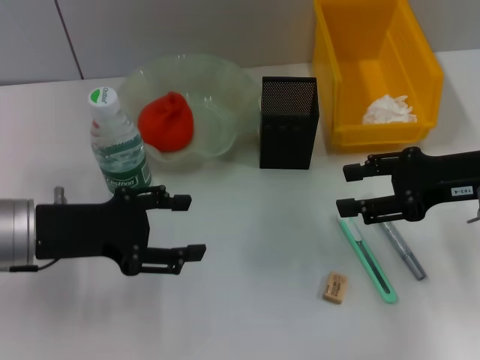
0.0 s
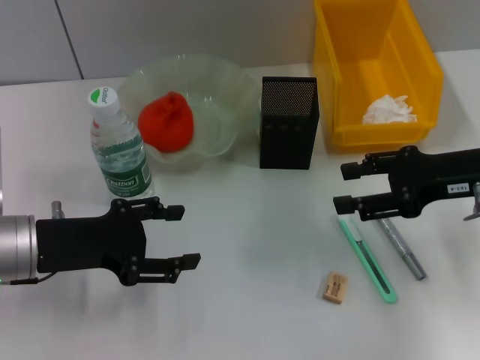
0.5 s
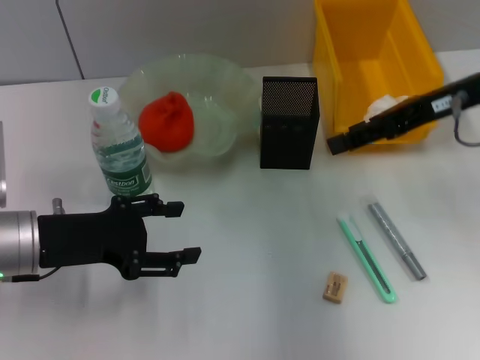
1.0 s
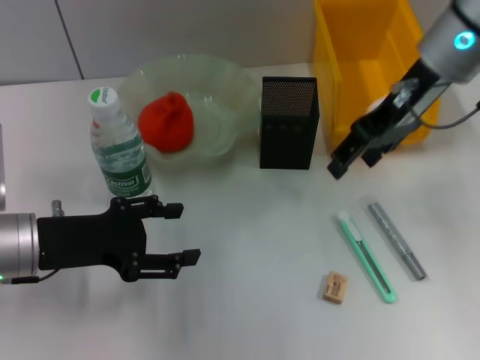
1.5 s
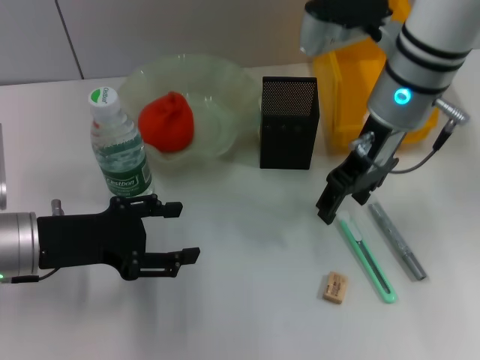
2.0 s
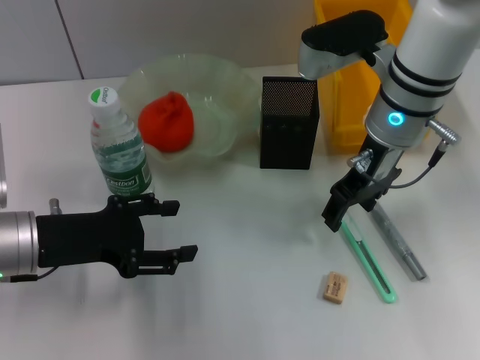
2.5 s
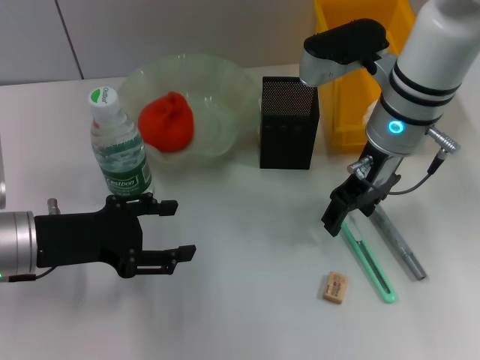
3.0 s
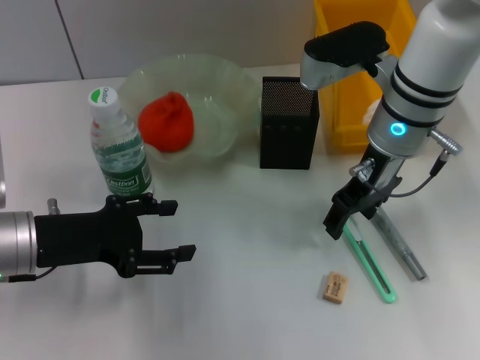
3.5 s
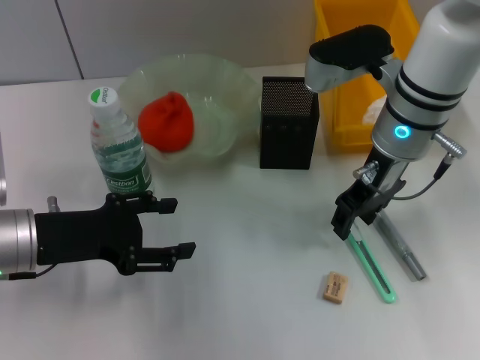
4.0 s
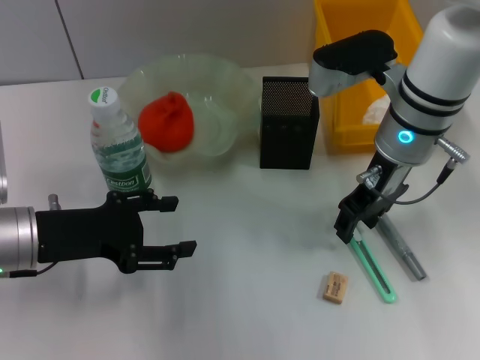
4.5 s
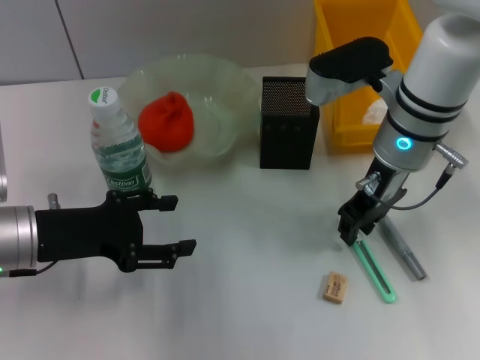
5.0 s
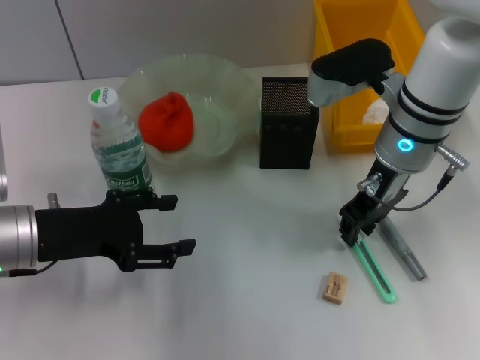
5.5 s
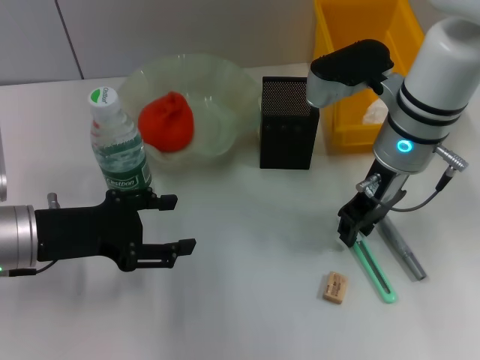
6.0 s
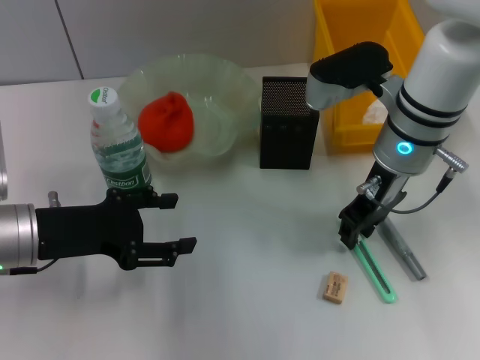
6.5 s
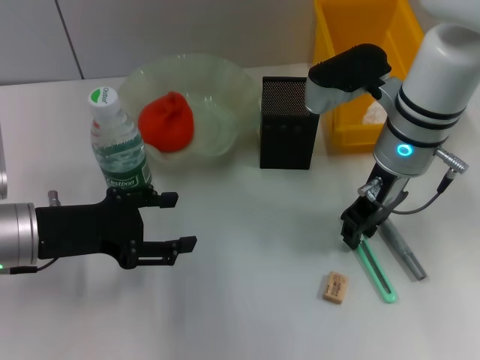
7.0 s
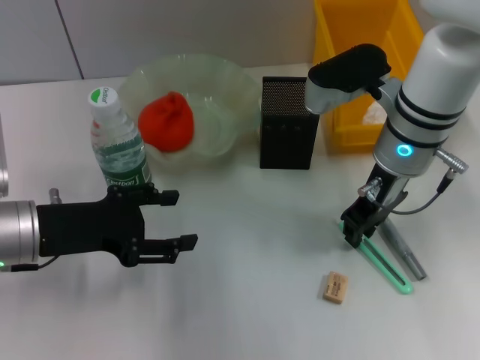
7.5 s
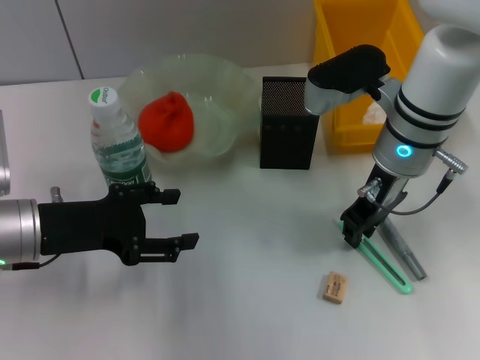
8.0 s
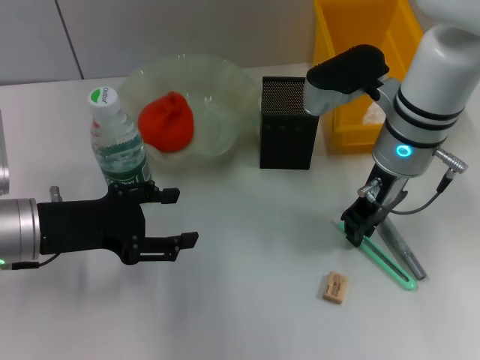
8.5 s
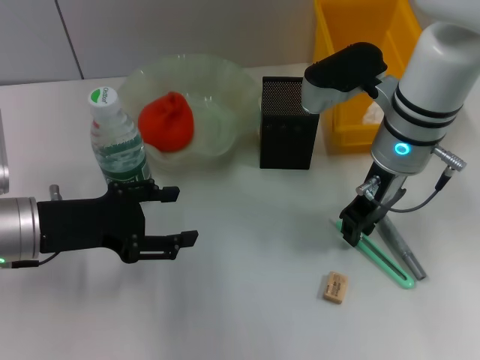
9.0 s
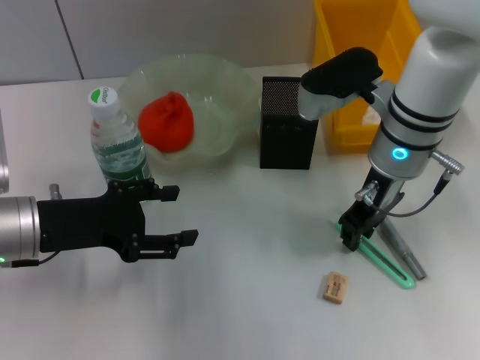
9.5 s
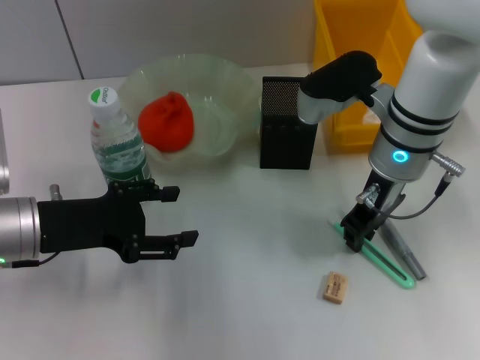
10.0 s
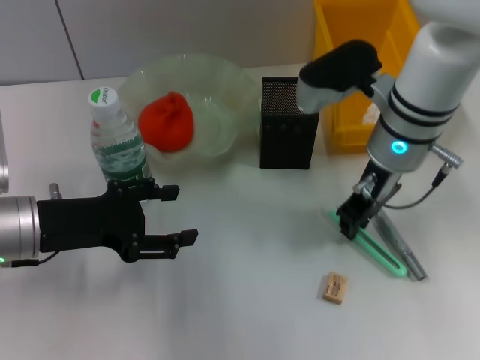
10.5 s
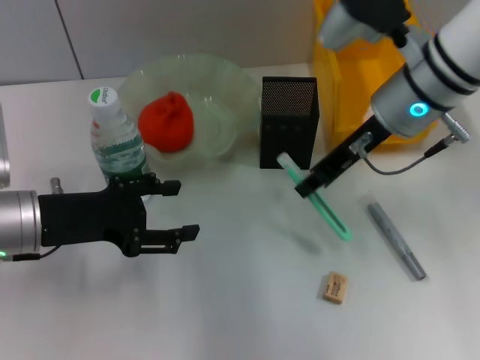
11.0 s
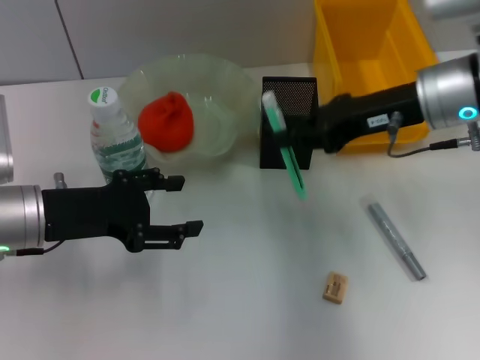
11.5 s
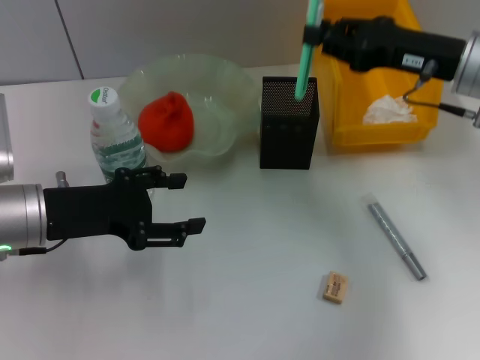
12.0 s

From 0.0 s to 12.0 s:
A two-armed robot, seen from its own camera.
Step, from 0.0 s to 9.0 s: Grab the blue utility knife with the right hand.
From 0.0 s to 2.0 s: The right gripper travels to the left and forward by some 15 cm.
From 2.0 s to 4.0 s: The grippers make only small movements.
From 4.0 s to 6.0 s: The two grippers keep their place.
From 6.0 s to 8.0 s: The two grippers keep their place.
From 8.0 s to 10.0 s: The two grippers keep their place.
From 10.0 s to 12.0 s: The right gripper goes roughly 10 cm to the right.

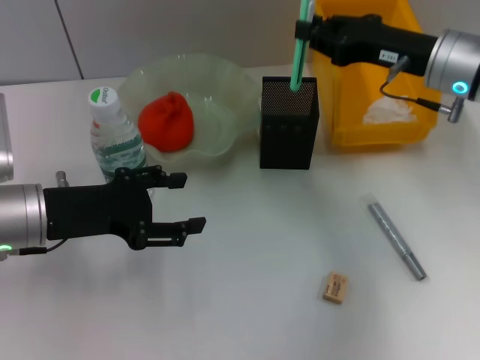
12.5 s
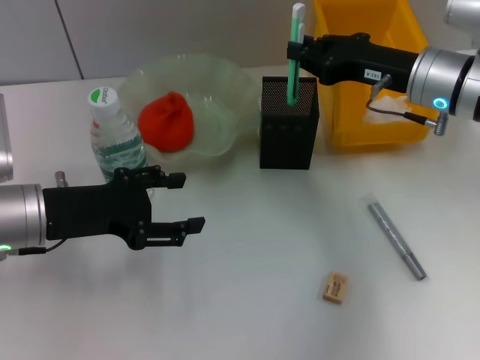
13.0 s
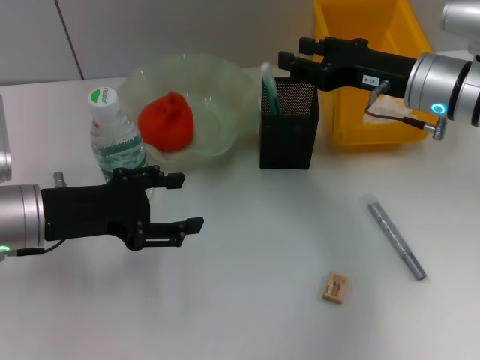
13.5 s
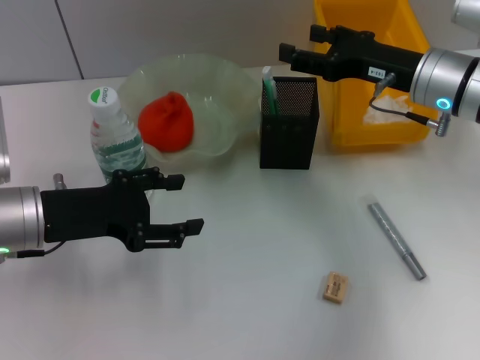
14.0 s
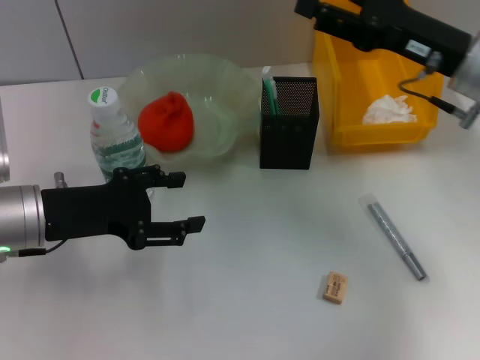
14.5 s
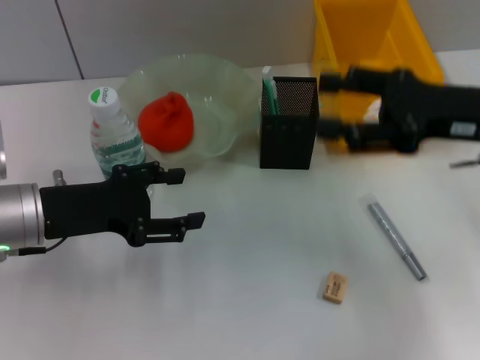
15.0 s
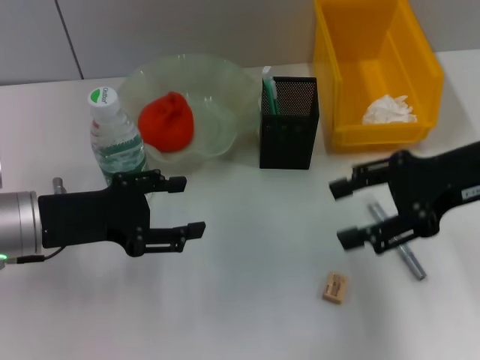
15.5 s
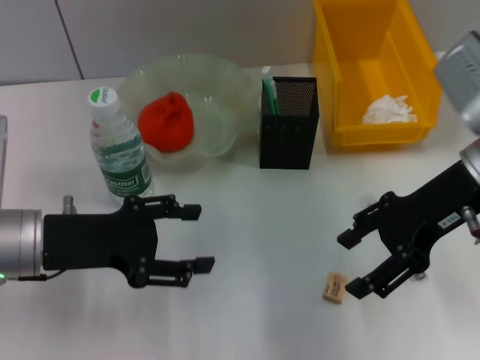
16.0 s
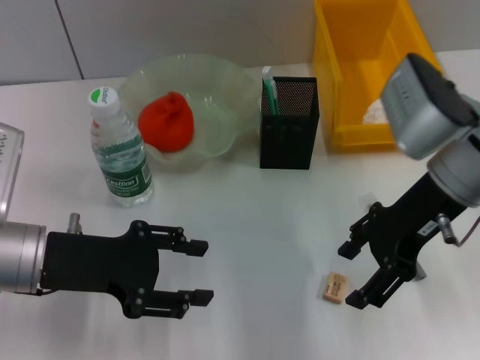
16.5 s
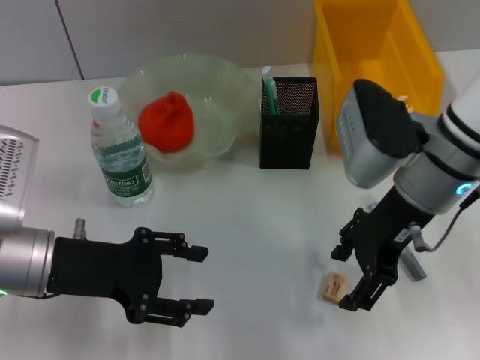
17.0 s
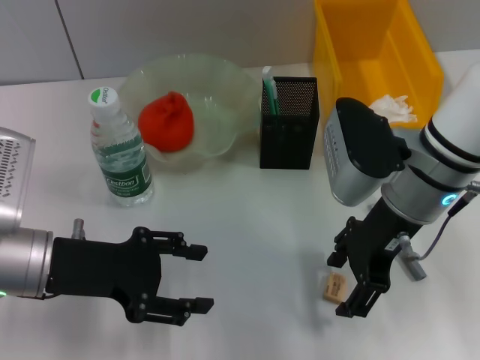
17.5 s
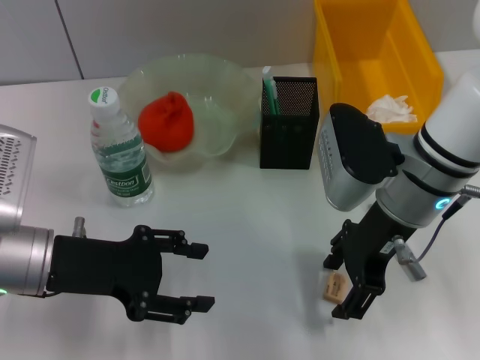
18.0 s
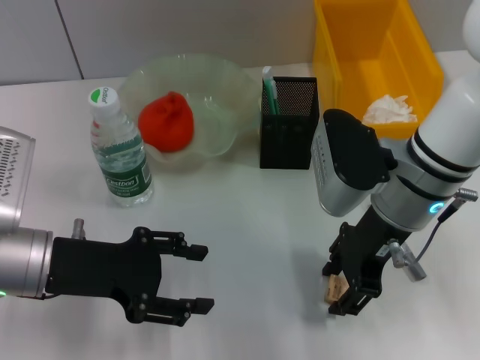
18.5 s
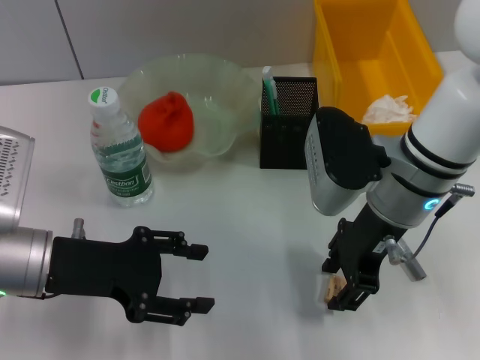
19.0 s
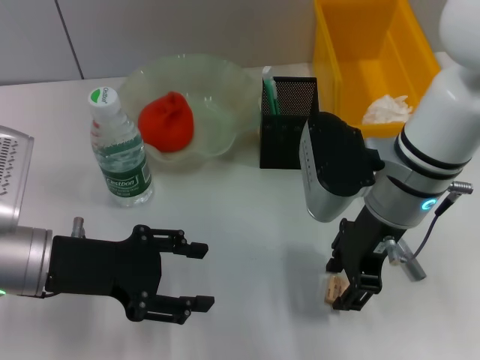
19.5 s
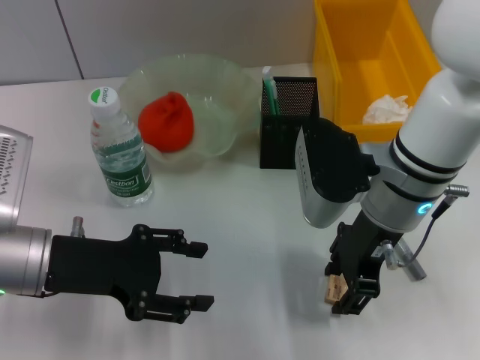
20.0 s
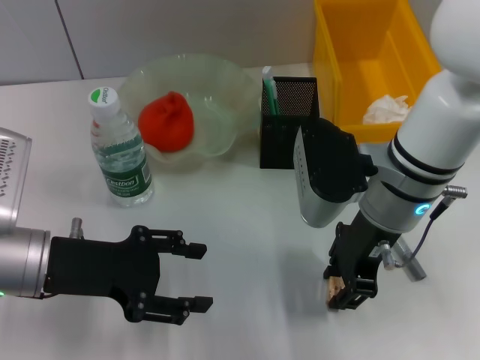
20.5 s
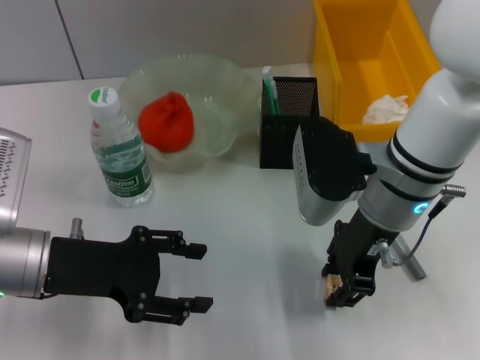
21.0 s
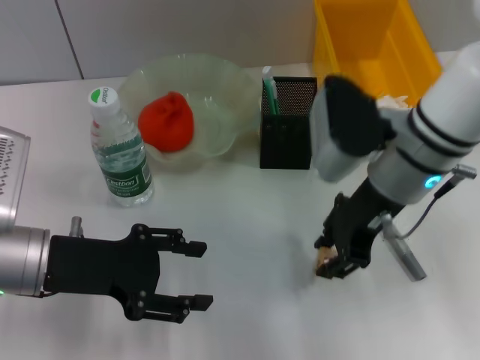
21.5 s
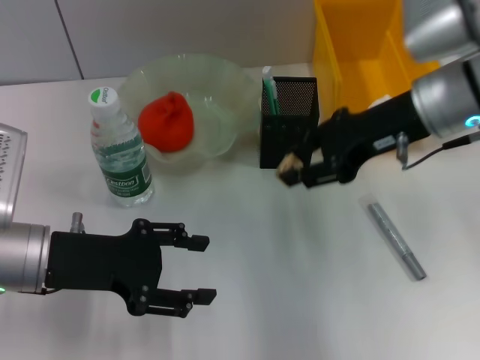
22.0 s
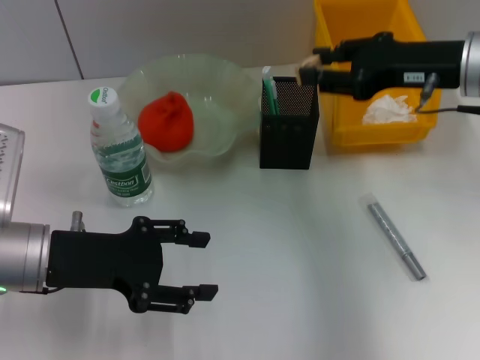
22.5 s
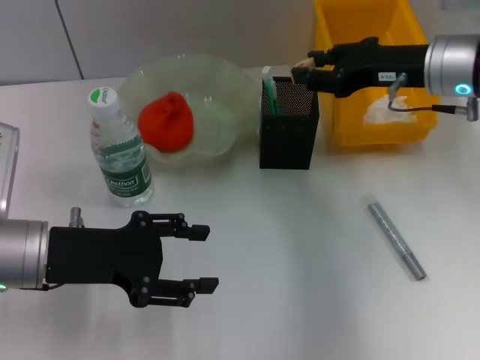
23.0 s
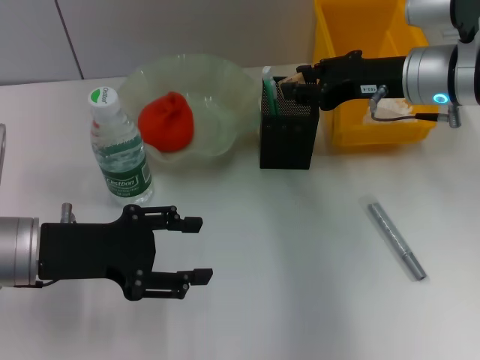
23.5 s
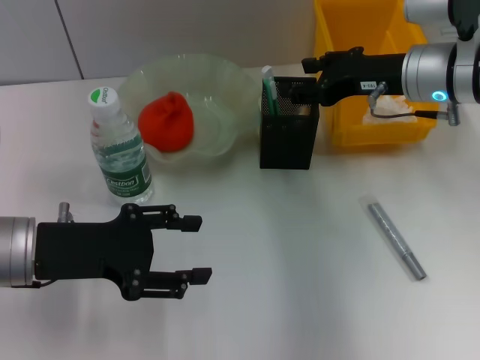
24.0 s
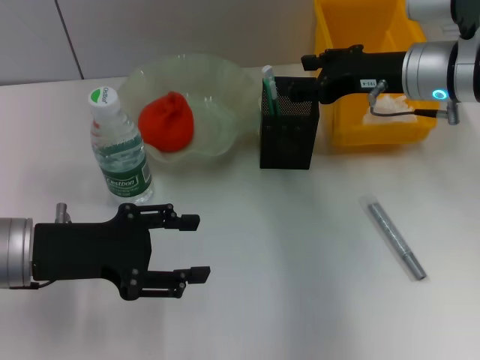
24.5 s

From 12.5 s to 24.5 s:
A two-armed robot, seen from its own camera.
Step, from 14.0 s to 20.5 s: Grab the eraser with the right hand.
Step, from 21.0 s to 24.0 s: Put the eraser into the pen holder with the right hand.
From 12.5 s to 14.5 s: The right gripper opens up.
From 14.5 s to 16.5 s: The right gripper ends up roughly 5 cm from where it was.
From 16.5 s to 18.5 s: The right gripper changes place by some 5 cm.
From 18.5 s to 20.5 s: The right gripper closes its fingers.
From 20.5 s to 22.5 s: The right gripper travels to the right and upward by about 10 cm.
From 22.5 s to 24.5 s: The right gripper changes place by approximately 5 cm, and opens its fingers.

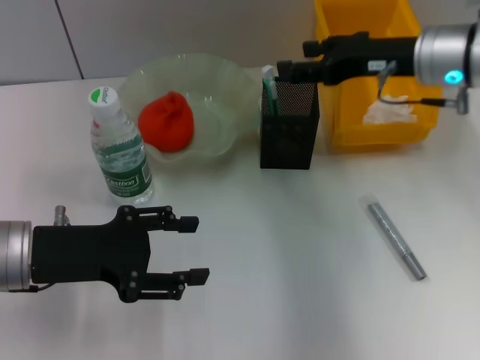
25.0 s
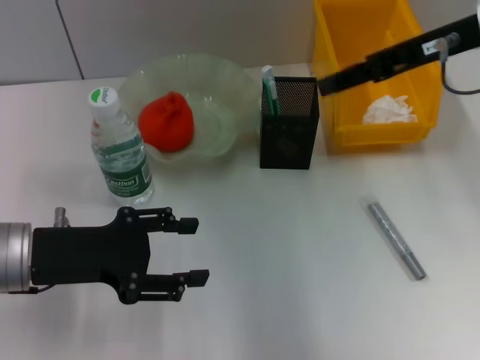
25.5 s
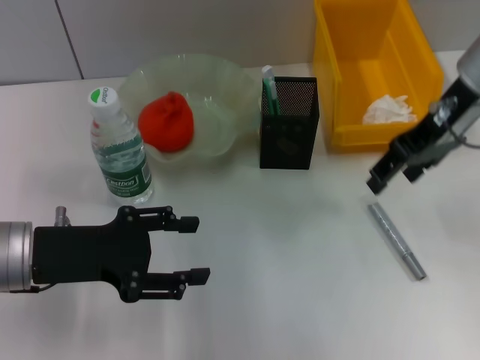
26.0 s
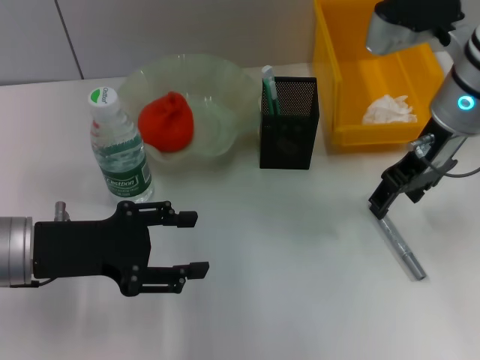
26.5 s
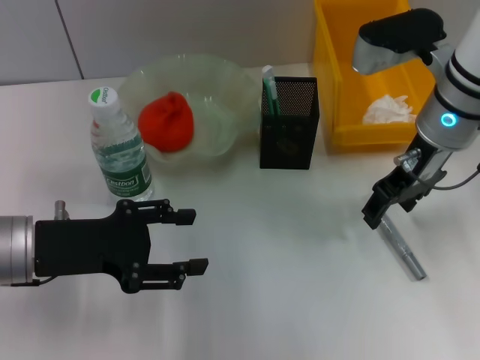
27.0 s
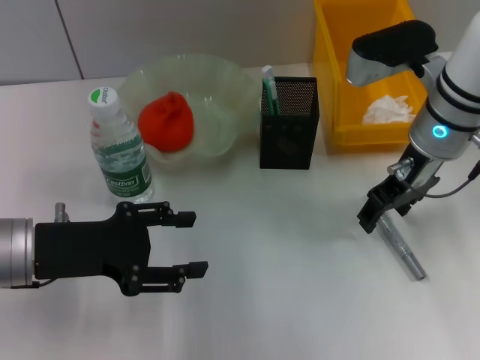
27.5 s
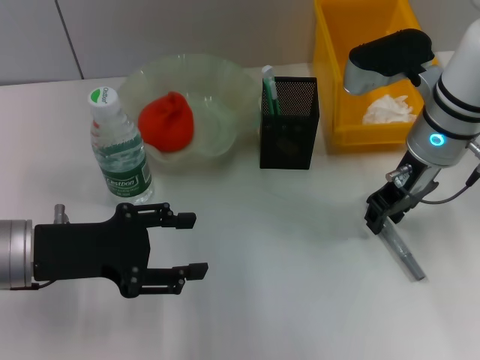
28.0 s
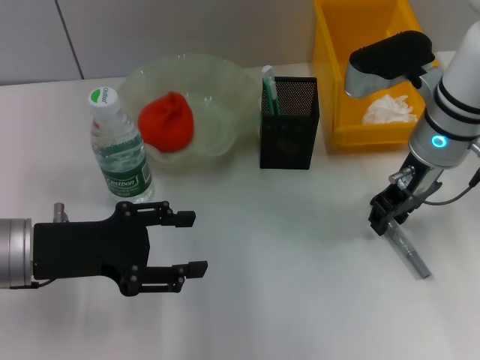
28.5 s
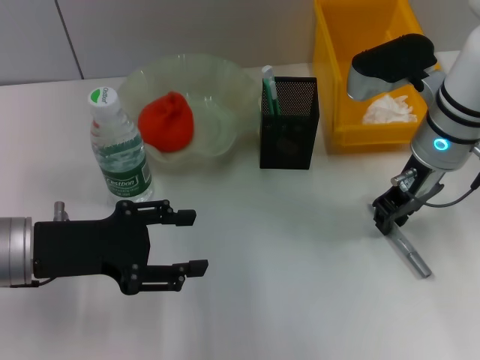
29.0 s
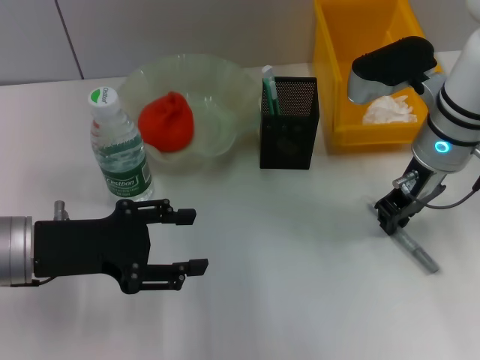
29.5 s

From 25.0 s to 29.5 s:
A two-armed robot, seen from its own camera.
Step, from 25.0 s to 29.0 s: Grab the gray glue with the right hand.
From 25.0 s to 27.0 s: The right gripper goes upward and returns, roughly 10 cm each way.
From 27.0 s to 29.5 s: The right gripper closes its fingers.
